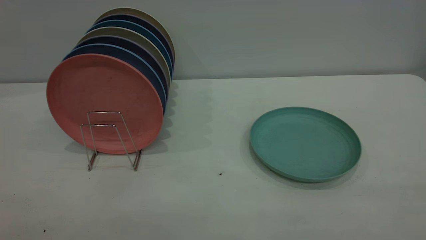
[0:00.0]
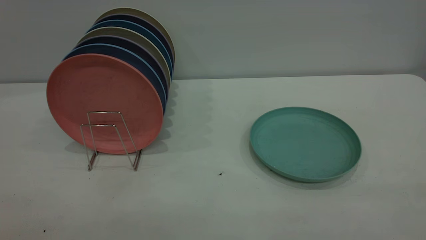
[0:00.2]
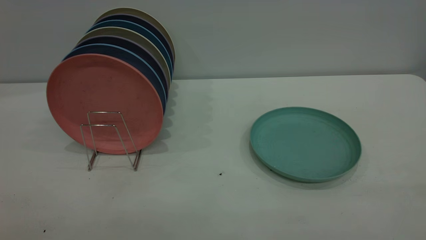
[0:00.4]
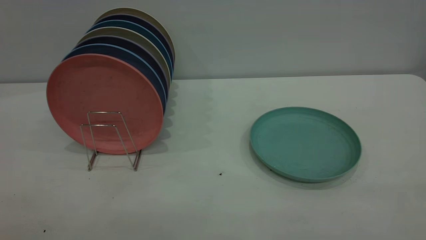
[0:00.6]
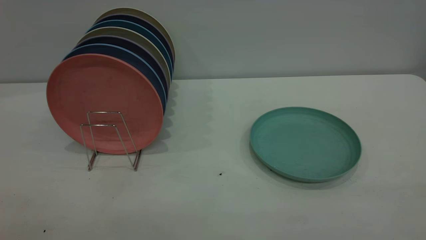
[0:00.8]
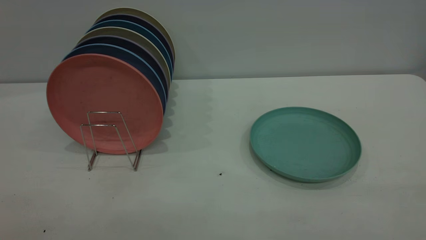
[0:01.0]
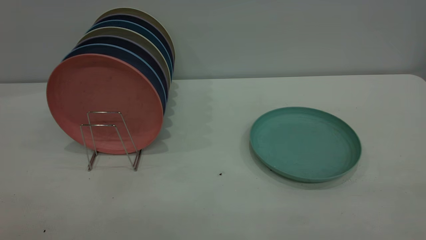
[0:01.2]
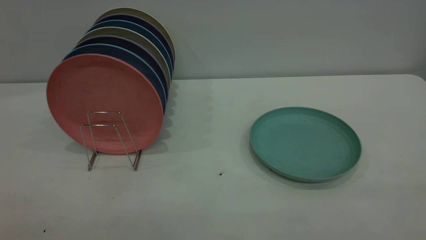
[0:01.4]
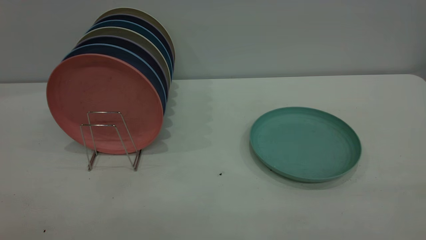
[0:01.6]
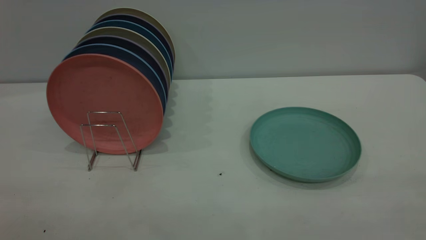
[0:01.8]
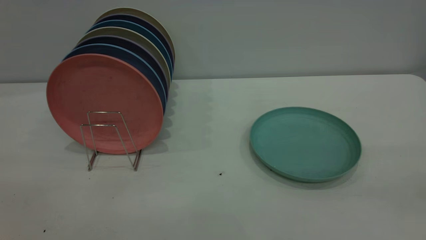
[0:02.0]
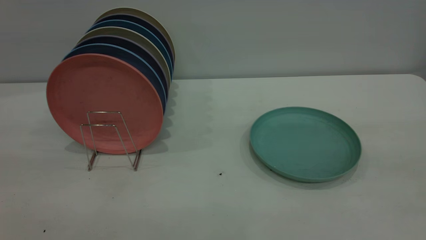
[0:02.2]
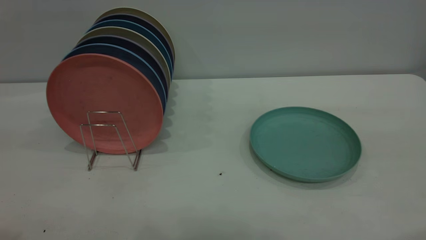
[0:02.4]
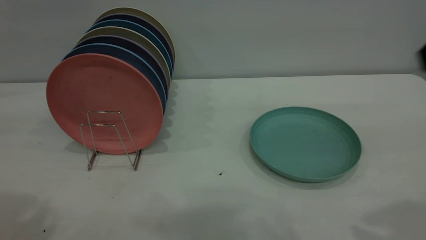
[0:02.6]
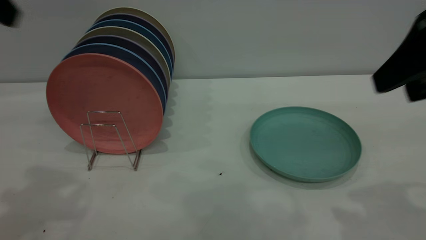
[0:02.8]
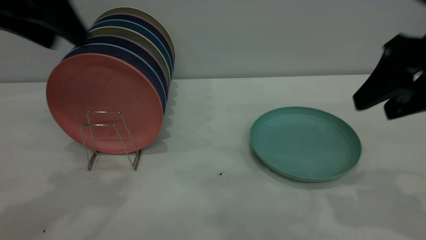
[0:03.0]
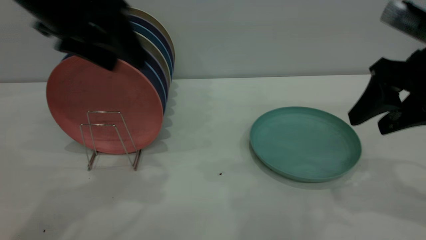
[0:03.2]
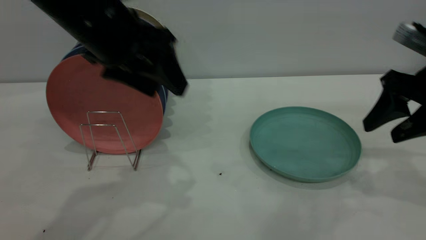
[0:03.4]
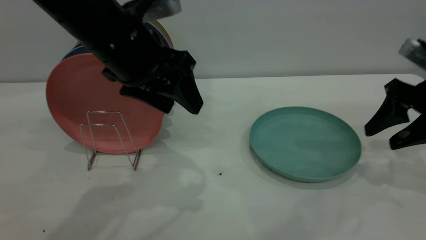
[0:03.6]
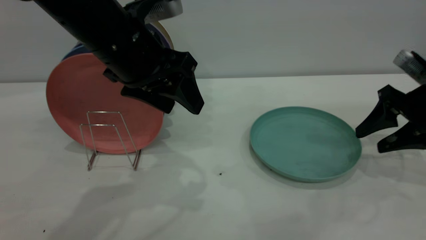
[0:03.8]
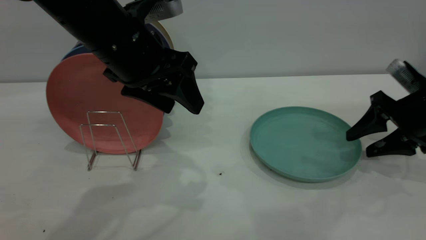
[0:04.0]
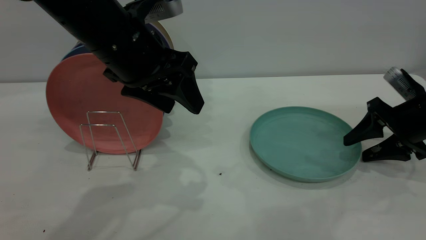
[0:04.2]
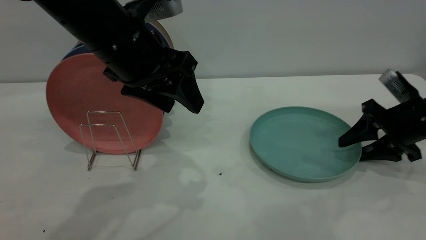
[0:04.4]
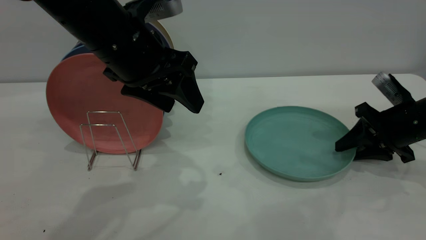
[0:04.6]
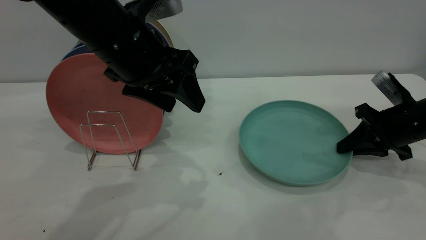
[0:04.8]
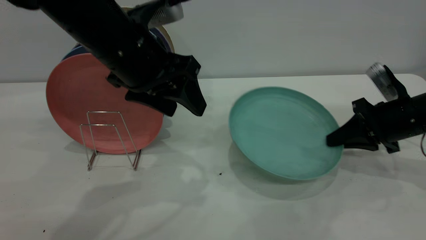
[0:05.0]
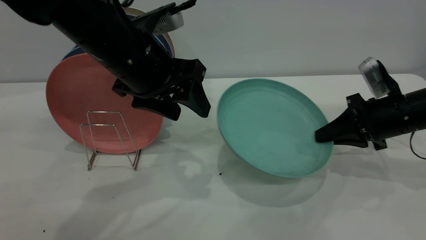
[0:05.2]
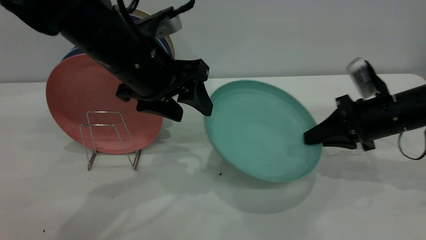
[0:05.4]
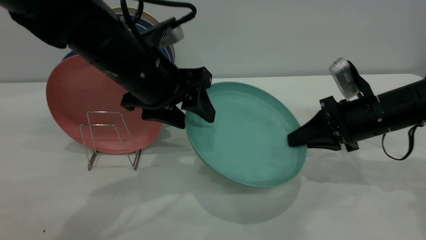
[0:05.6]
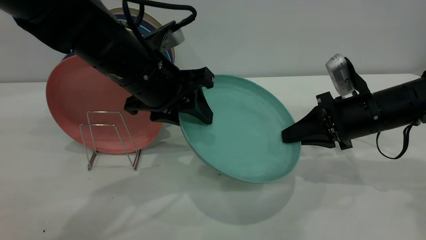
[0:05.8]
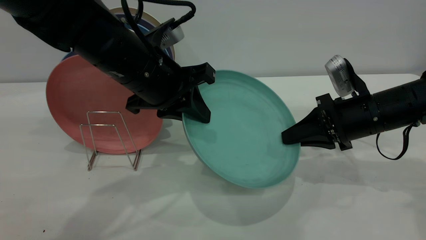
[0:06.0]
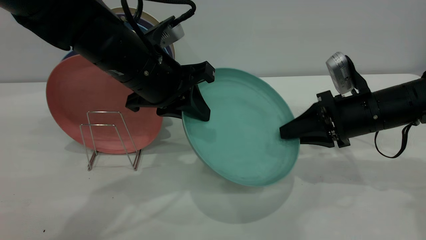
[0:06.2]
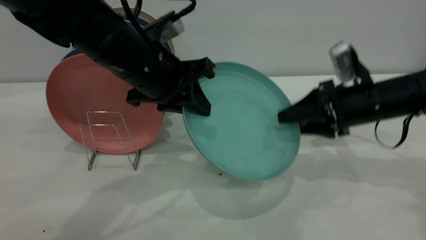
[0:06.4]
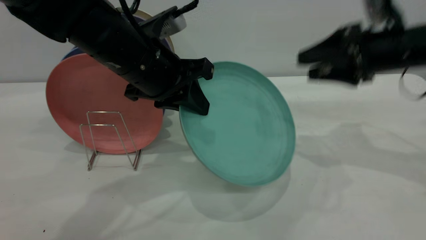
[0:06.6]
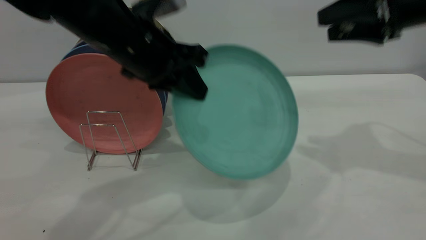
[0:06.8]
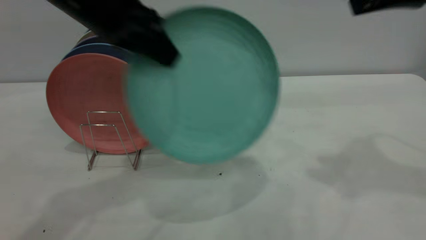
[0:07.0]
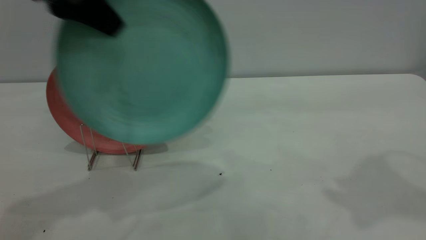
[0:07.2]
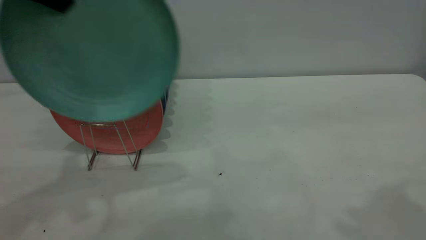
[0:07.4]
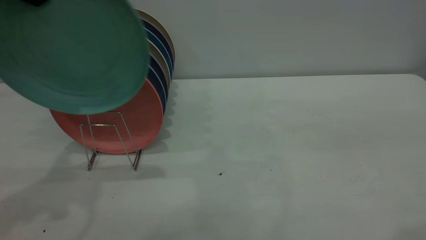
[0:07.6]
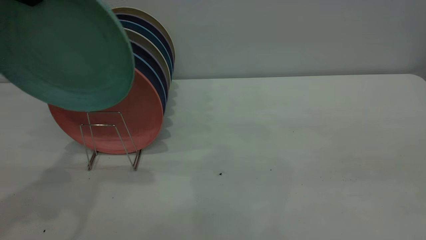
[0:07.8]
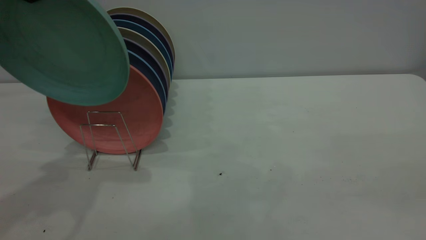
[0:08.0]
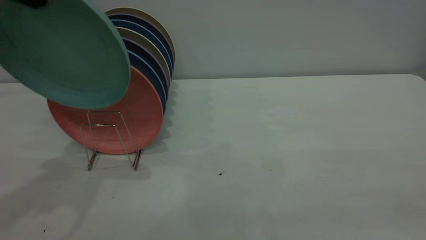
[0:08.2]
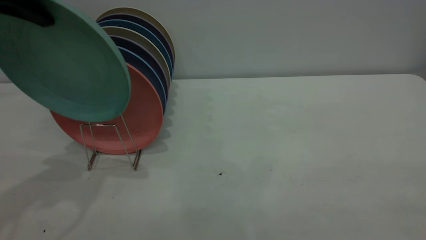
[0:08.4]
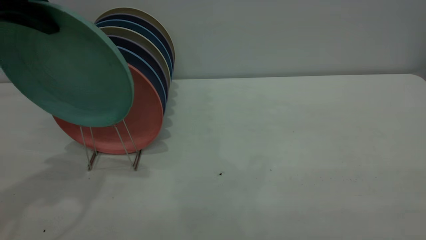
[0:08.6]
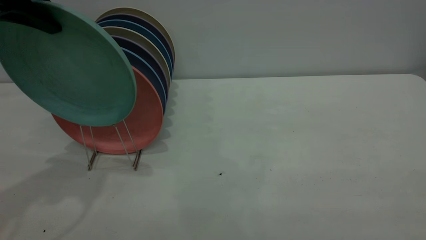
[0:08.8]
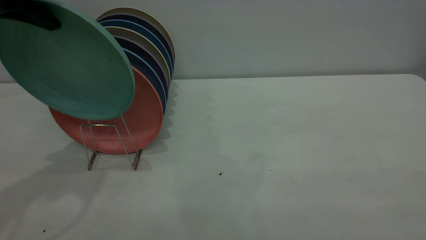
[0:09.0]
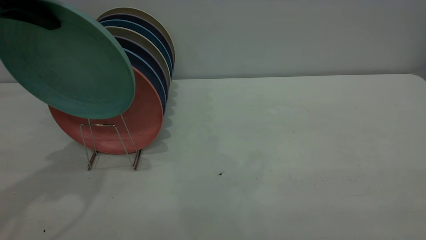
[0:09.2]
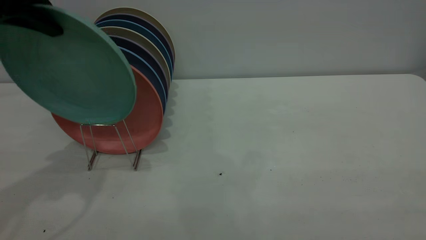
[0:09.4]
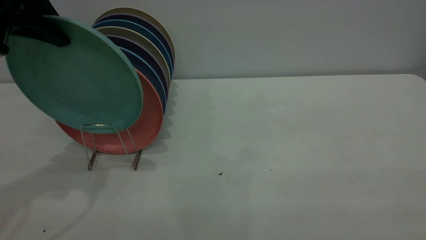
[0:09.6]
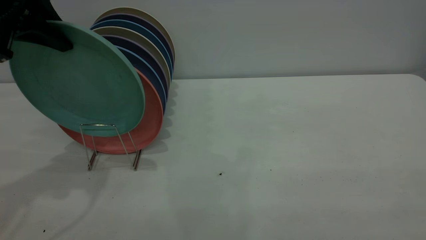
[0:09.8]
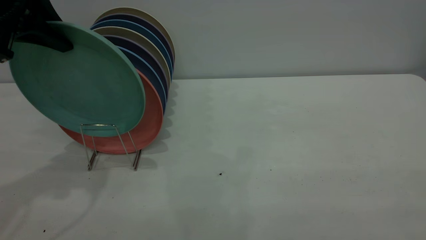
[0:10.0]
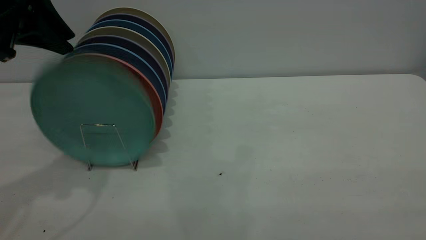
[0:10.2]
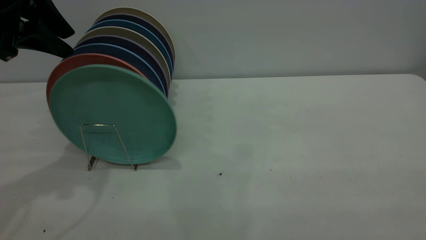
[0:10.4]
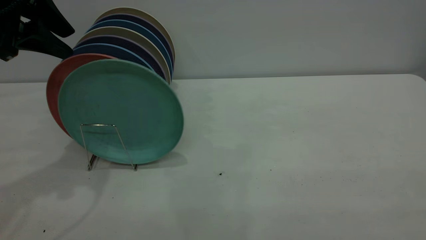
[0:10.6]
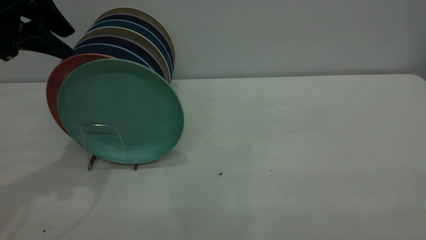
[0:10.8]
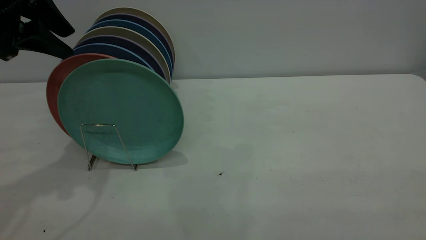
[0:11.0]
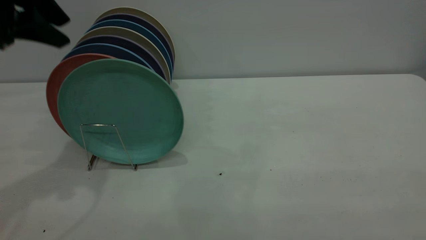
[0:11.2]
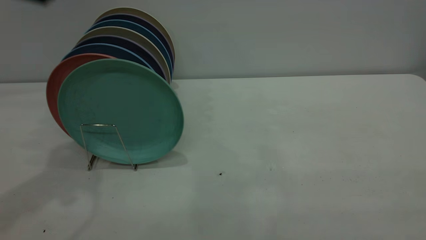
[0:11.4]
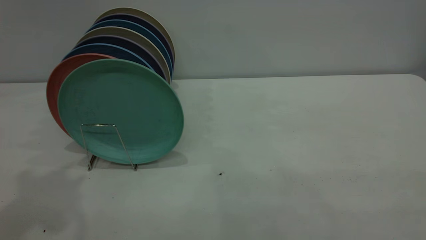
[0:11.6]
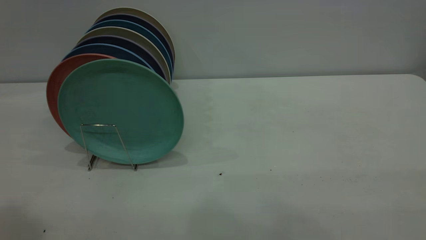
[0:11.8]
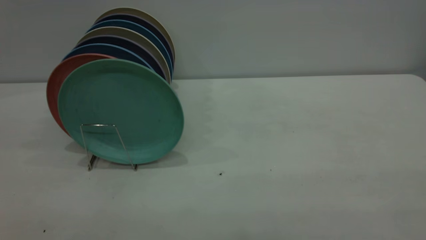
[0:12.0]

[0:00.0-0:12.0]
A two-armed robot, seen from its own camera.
Task of the whole recording: the right gripper grasp the green plate, the right gripper pass the green plate to the left gripper, and the left gripper place the green plate on the plate rack.
Step, 0:00.0 to 0:04.8: Pick up the plate with the right gripper.
Step, 0:05.2 to 0:06.4: Pass the plate from the right gripper to the left gripper.
Step, 0:06.6 to 0:11.0: Place the plate on the shelf.
0:00.0 to 0:01.6: Both grippers stay about where they are.
0:01.6 to 0:03.0: Both grippers travel together forward, about 30 cm.
0:03.0 to 0:04.4: The right gripper goes some 20 cm downward and forward; the left gripper shifts approximately 15 cm to the right and downward.
0:04.4 to 0:06.0: The left gripper heads downward, covering approximately 5 cm, and closes up; the right gripper heads to the left, covering approximately 10 cm, and closes its fingers.
0:06.0 to 0:07.6: The right gripper shifts about 35 cm upward and backward, and opens its fingers, while the left gripper shifts some 25 cm upward and to the left.
0:07.6 to 0:09.0: The left gripper ends up roughly 5 cm from where it was.
0:09.0 to 0:10.4: The left gripper opens its fingers.
0:10.4 to 0:12.0: The left gripper moves backward and upward, roughly 25 cm.
